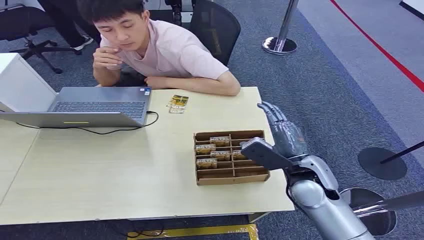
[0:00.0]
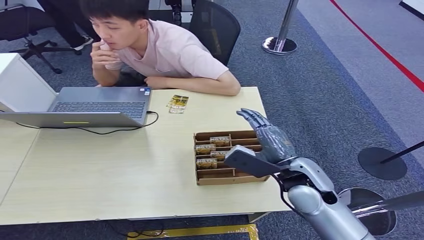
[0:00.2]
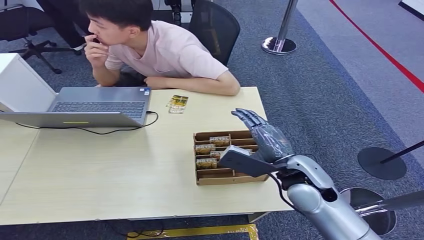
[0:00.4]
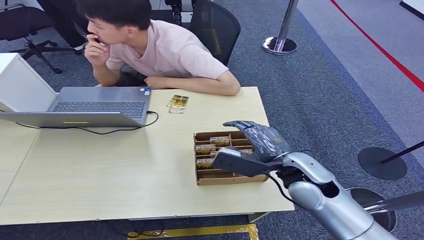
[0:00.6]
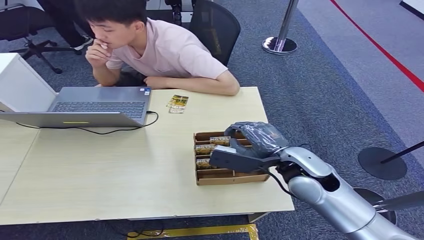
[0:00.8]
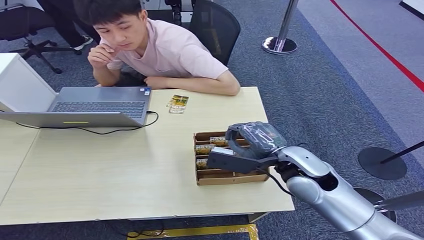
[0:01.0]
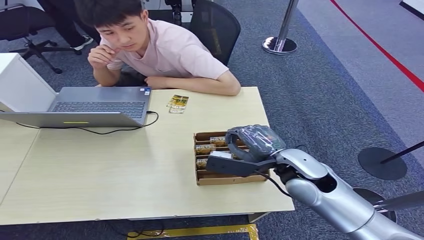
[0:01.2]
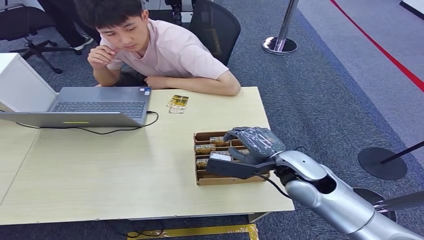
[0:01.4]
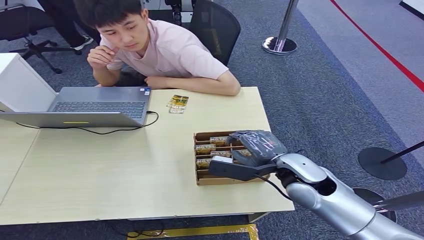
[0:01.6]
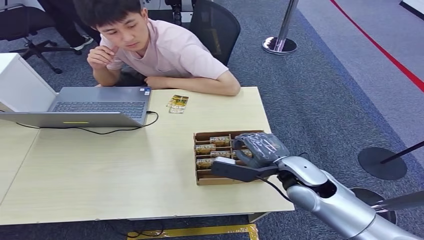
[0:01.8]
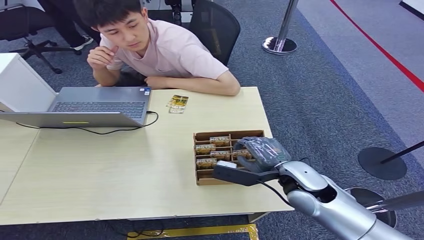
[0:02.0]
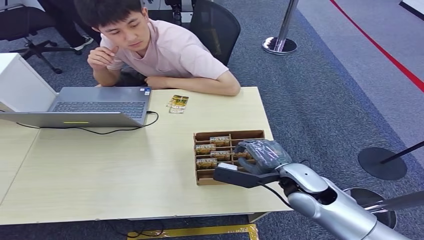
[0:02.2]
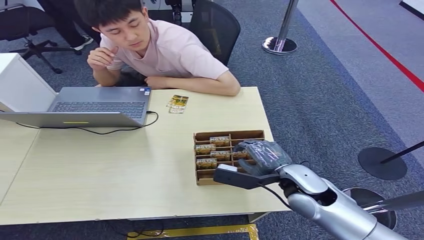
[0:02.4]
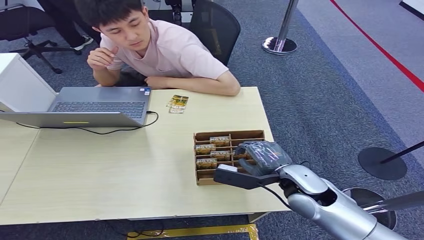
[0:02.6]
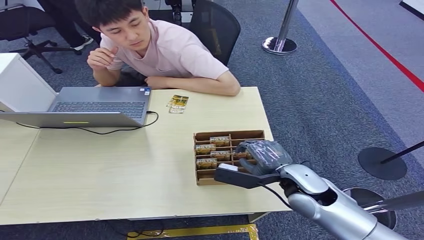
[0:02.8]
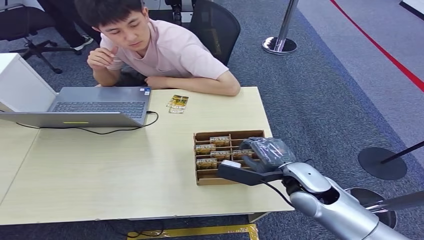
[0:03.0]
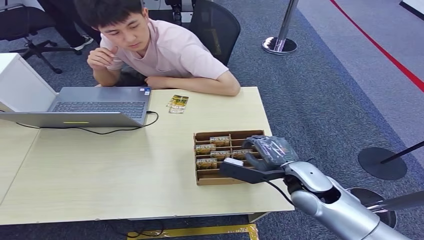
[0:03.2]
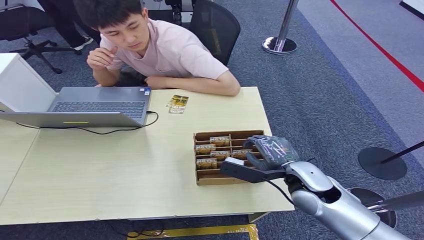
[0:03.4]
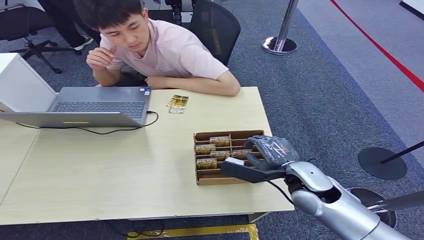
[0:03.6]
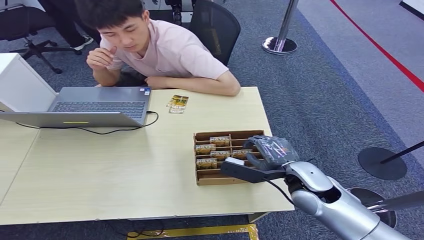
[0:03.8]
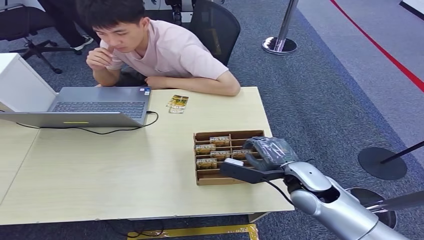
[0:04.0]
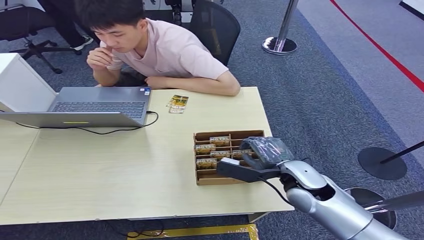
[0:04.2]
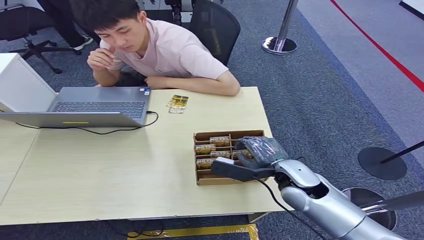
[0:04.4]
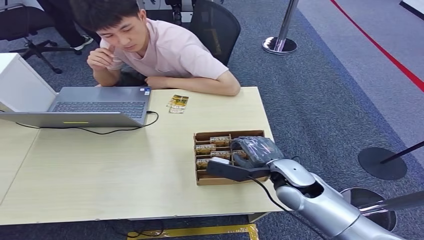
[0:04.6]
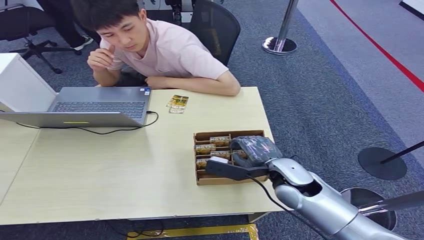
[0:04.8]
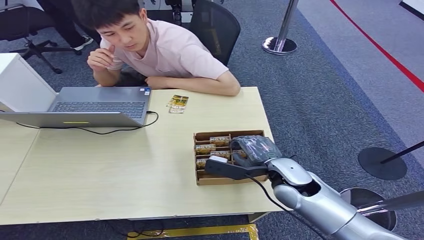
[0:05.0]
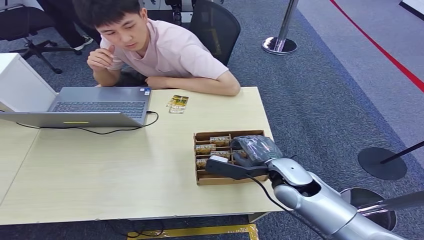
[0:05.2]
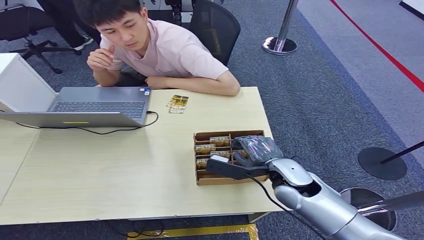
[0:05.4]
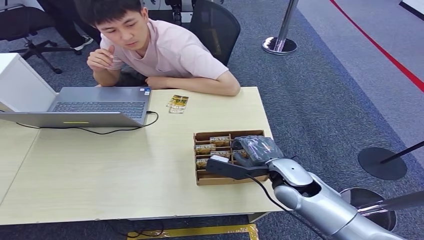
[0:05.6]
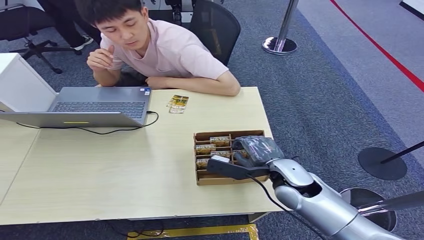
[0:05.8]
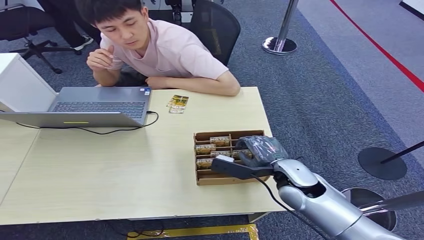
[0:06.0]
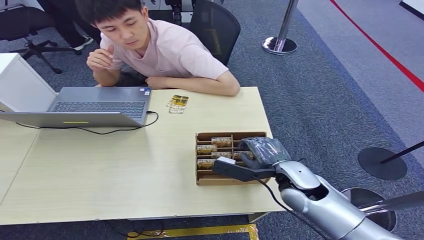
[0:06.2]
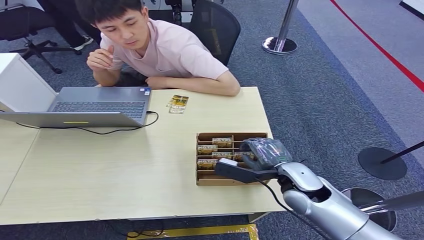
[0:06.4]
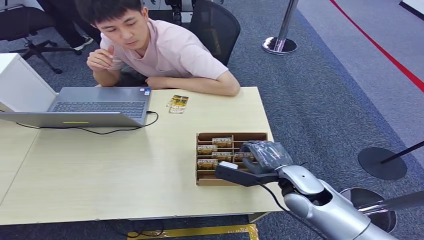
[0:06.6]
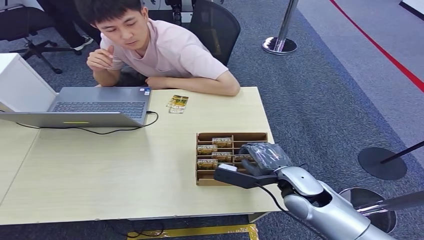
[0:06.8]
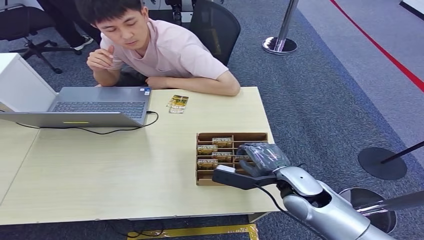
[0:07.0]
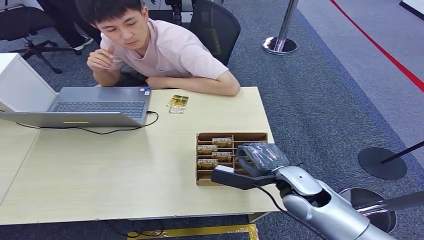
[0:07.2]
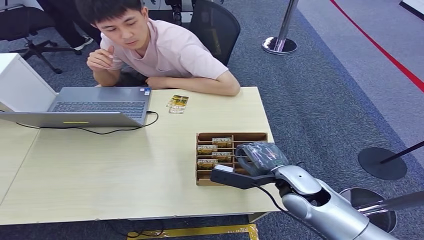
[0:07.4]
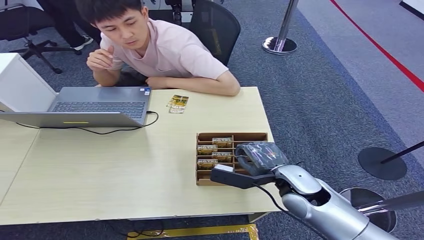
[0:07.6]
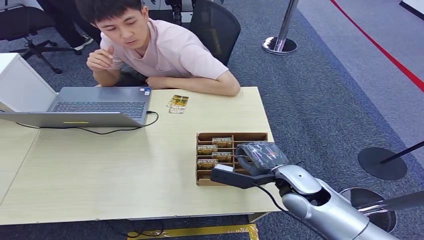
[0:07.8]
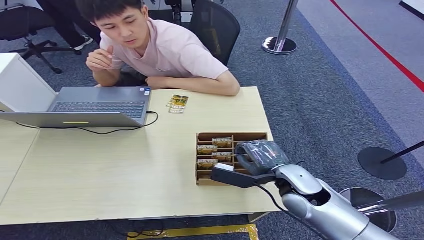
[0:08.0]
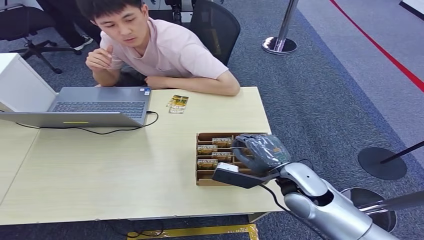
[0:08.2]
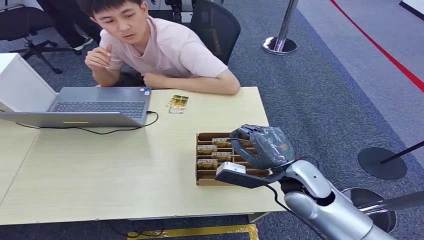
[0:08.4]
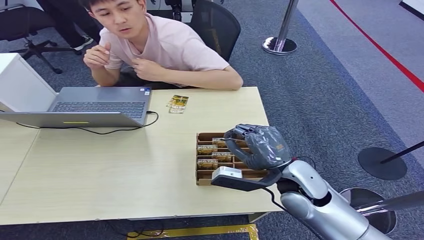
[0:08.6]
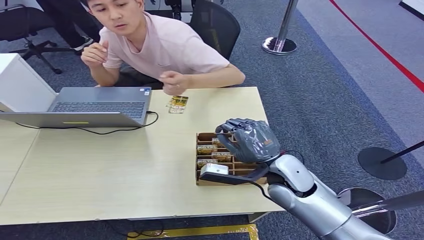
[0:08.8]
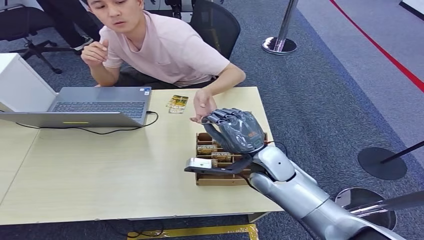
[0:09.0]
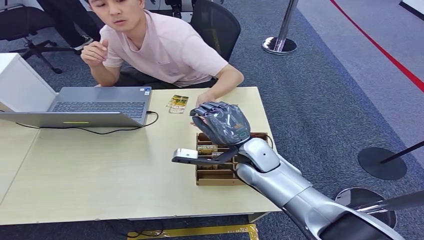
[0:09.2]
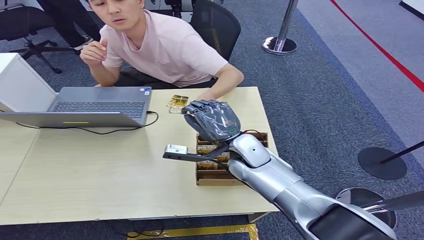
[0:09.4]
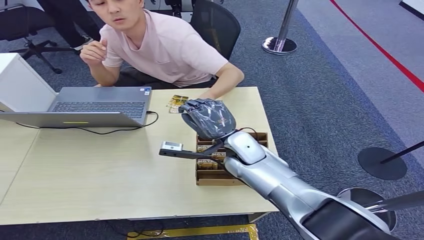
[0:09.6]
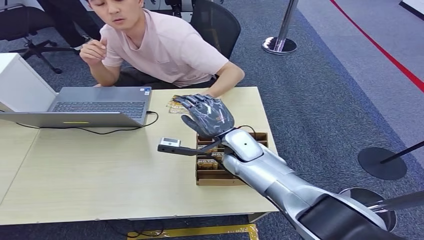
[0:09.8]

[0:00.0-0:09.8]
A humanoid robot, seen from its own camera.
Step, 0:00.0 to 0:08.6: Pick up the key card from the card box.
Step, 0:08.8 to 0:09.8: Hand the key card to the target.
0:01.4 to 0:02.8: The right hand ends up about 5 cm from where it was.
0:02.8 to 0:04.2: Both hands stay about where they are.
0:04.2 to 0:07.0: There are only small adjustments of the hands.
0:08.4 to 0:09.8: The right hand travels forward and to the left by some 15 cm.
